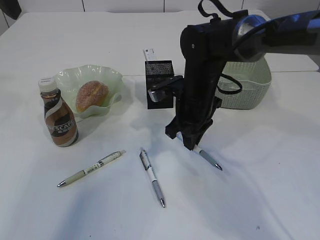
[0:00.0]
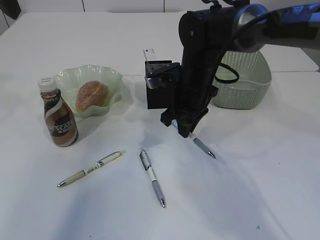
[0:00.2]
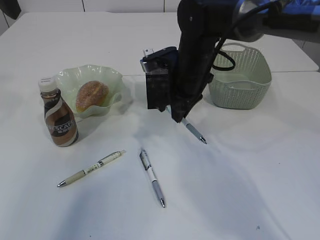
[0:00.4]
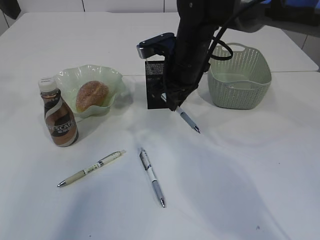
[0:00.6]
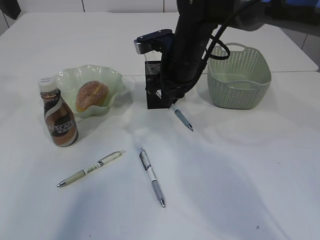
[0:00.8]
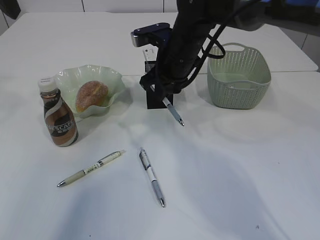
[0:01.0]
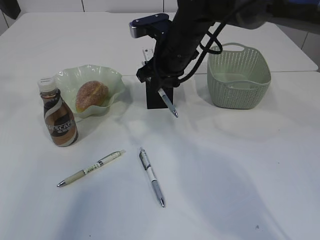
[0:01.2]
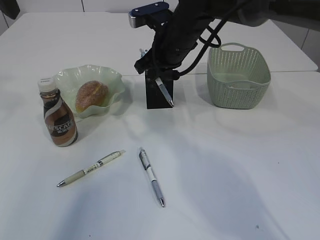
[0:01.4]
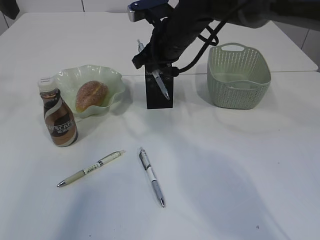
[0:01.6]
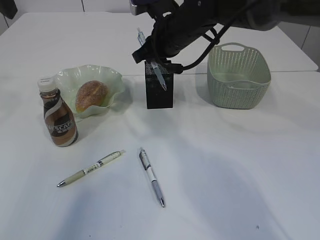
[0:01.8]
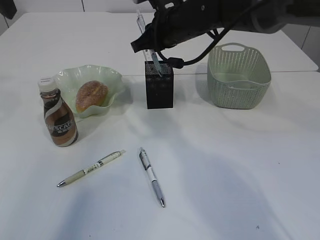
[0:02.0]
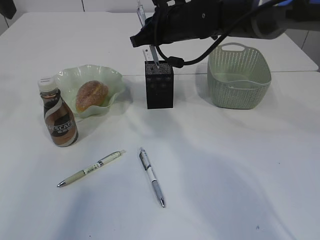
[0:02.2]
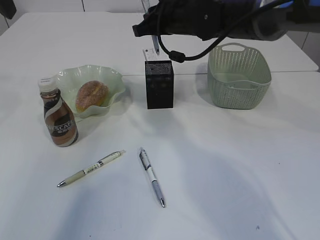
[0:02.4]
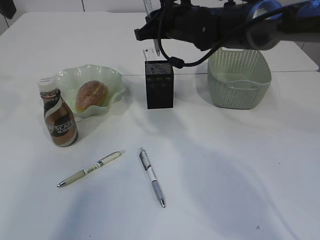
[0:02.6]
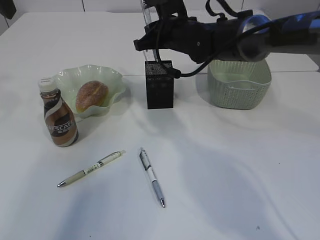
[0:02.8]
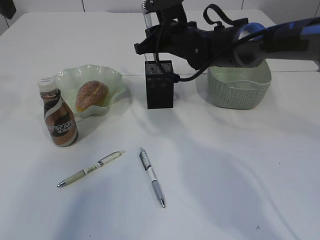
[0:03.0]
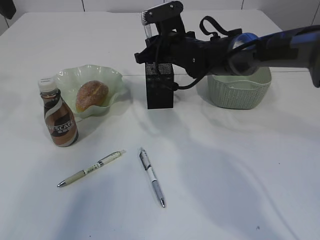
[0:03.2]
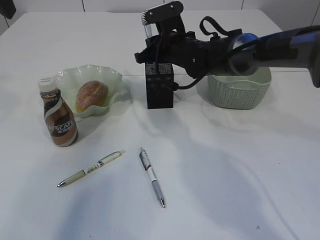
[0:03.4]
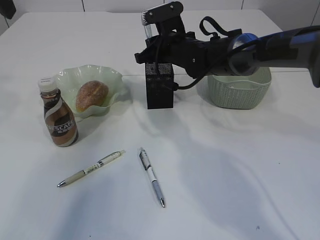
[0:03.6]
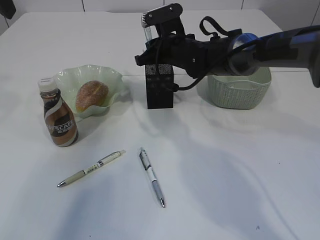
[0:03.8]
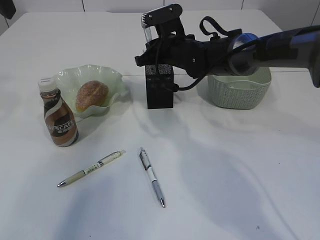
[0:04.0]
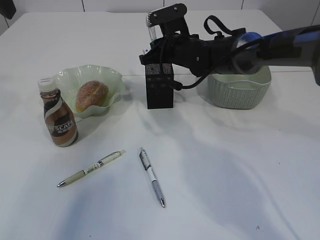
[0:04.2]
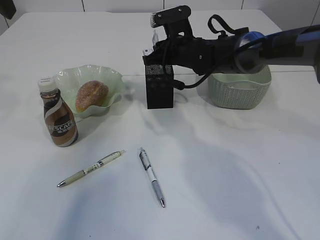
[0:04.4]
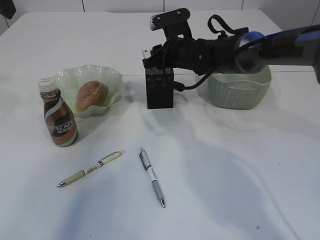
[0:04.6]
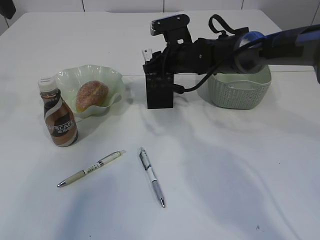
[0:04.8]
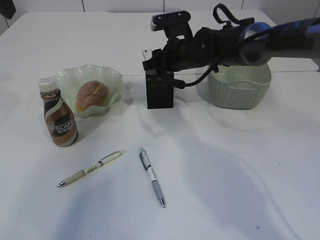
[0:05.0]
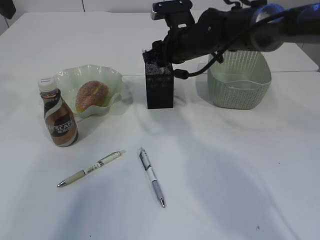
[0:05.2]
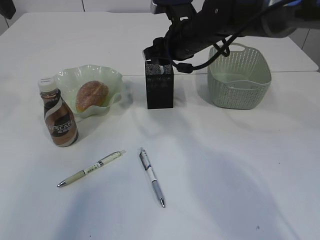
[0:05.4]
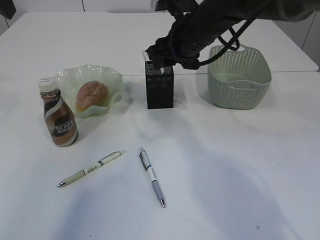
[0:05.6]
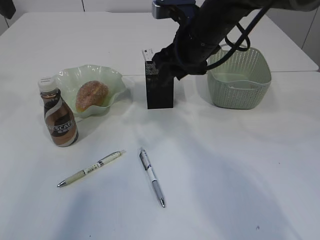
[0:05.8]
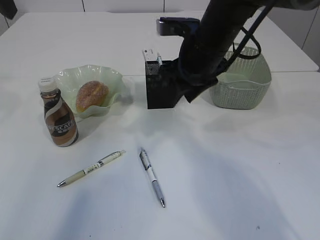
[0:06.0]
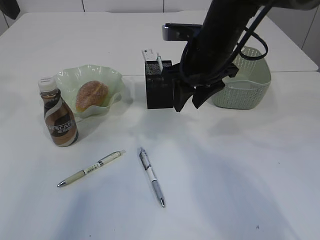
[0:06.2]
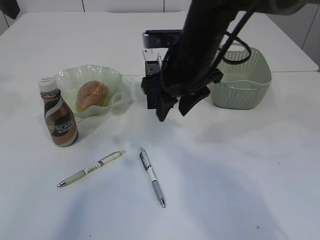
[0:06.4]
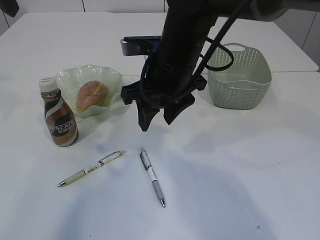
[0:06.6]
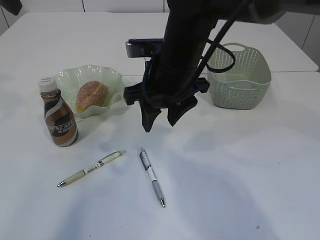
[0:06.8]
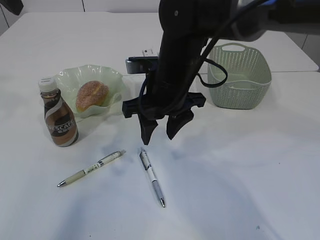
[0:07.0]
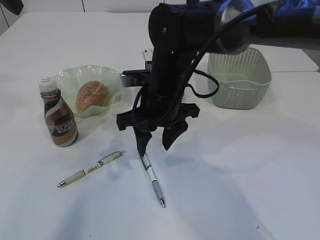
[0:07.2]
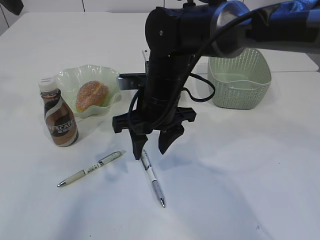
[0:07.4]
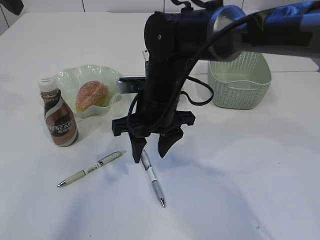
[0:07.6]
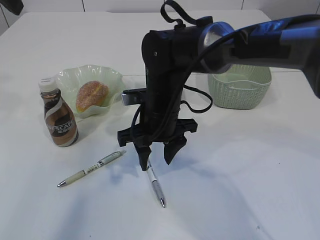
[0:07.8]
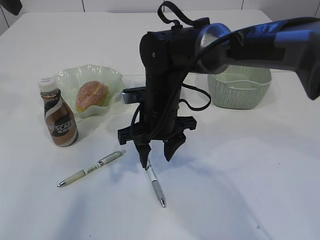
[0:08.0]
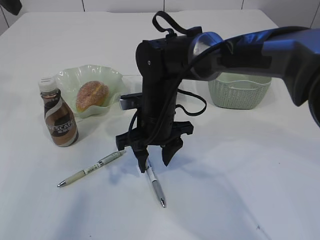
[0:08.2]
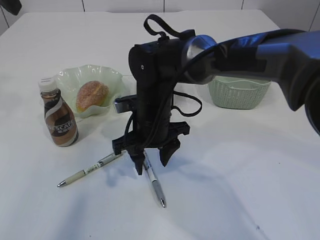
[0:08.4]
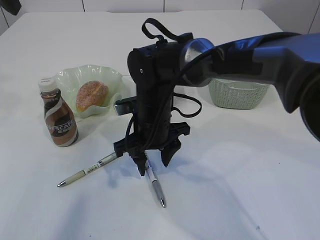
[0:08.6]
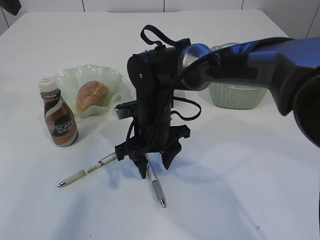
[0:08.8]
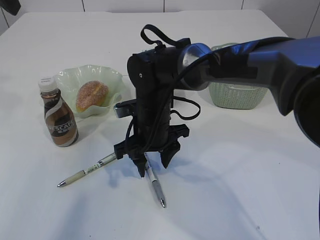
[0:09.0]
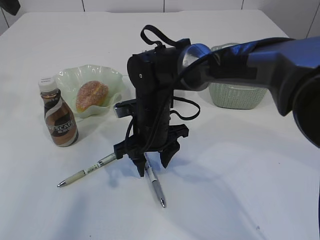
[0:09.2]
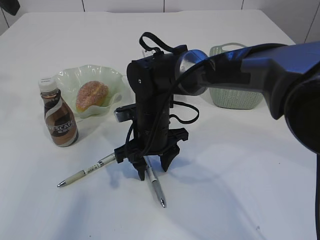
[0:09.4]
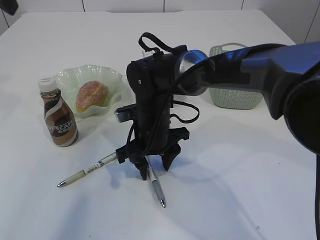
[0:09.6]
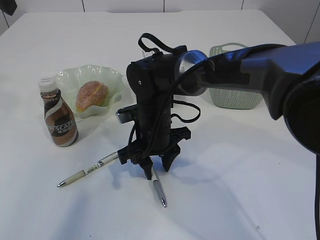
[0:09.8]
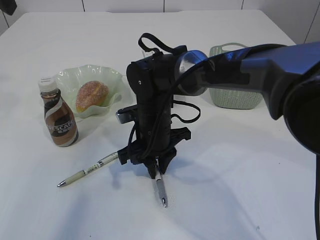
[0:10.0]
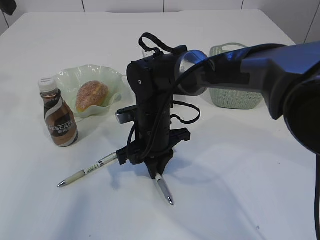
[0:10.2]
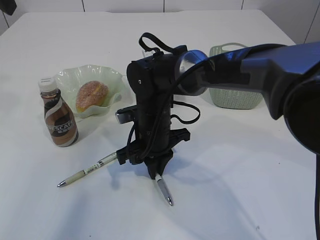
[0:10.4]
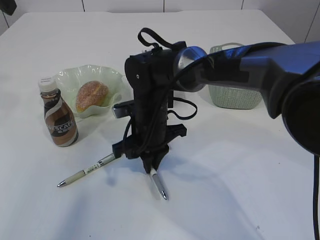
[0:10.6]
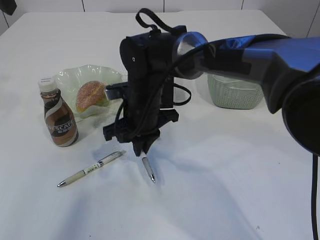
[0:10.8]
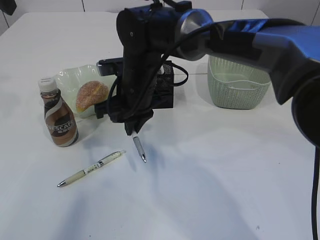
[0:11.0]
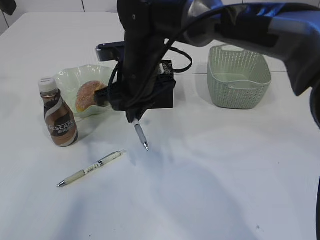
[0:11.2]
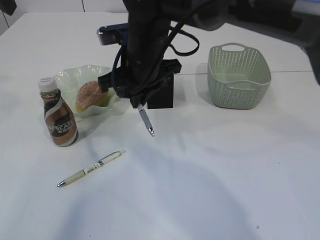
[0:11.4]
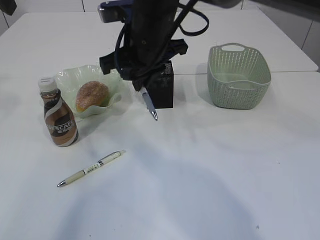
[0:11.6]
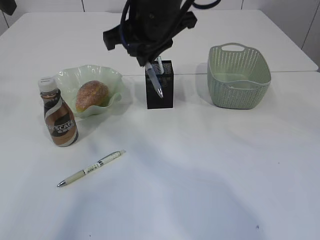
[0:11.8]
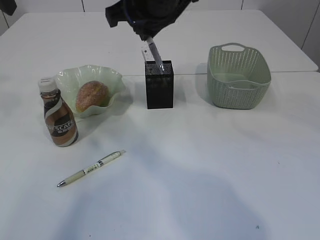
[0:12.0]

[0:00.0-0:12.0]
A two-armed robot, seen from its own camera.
Step, 0:00.2 to 0:05.8: Place the pen into the pen holder.
Step, 0:06.0 to 0:11.4: Pick up the pen with right arm.
0:00.0 to 0:01.6: The right gripper moves upward and forward, some 10 cm.
0:03.0 to 0:04.4: The grippers make only small movements.
0:04.4 to 0:06.0: The right gripper goes some 15 cm backward and upward, and opens its fingers.
0:06.0 to 0:07.6: The right gripper goes about 10 cm to the left and downward.
0:07.6 to 0:09.0: The right gripper is displaced downward by some 5 cm.
0:09.0 to 0:10.4: The right gripper closes.
0:10.4 to 0:12.0: The right gripper shifts some 20 cm upward.

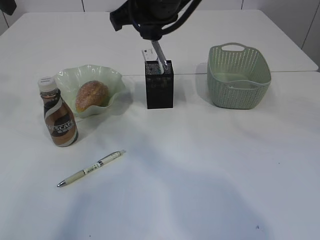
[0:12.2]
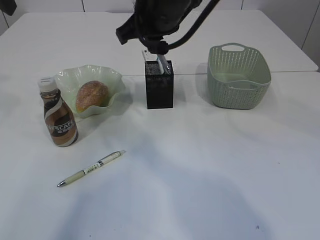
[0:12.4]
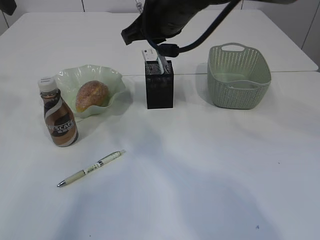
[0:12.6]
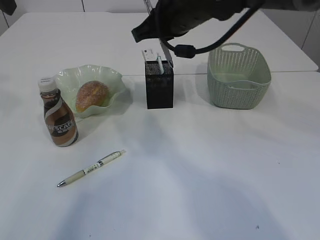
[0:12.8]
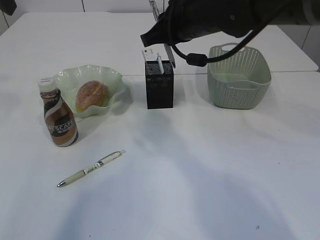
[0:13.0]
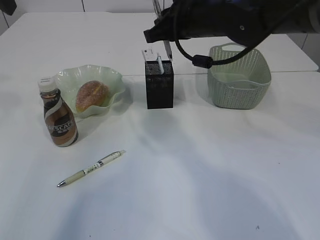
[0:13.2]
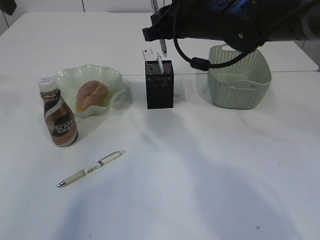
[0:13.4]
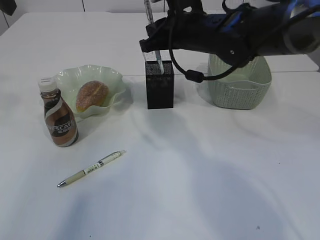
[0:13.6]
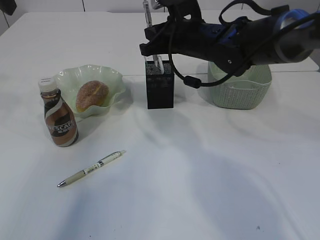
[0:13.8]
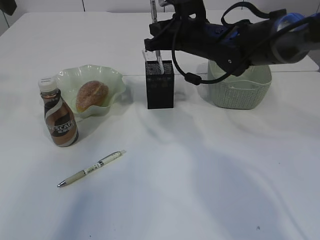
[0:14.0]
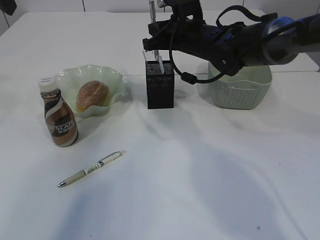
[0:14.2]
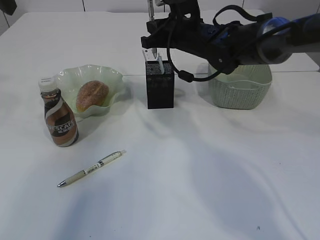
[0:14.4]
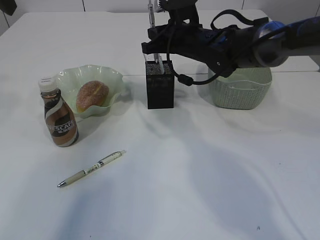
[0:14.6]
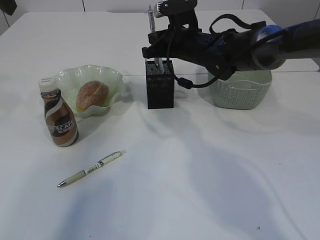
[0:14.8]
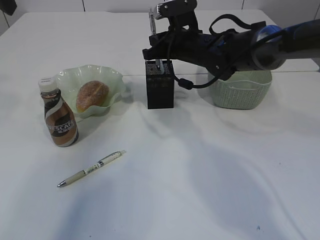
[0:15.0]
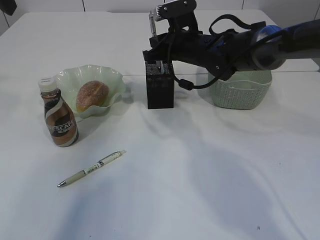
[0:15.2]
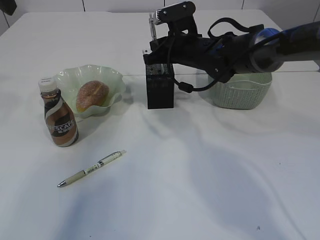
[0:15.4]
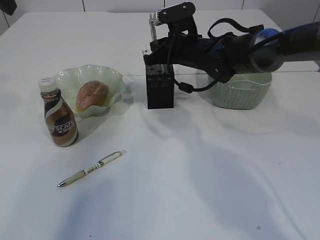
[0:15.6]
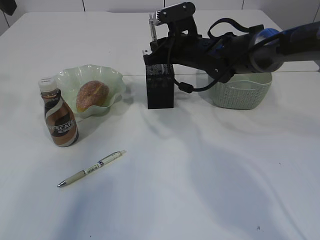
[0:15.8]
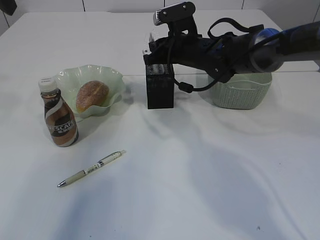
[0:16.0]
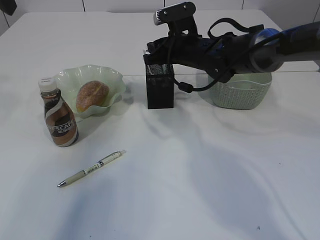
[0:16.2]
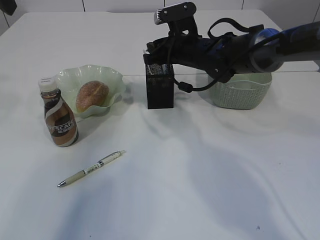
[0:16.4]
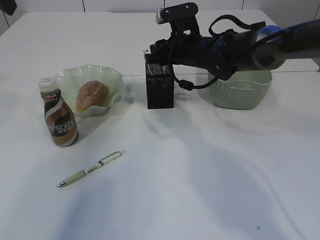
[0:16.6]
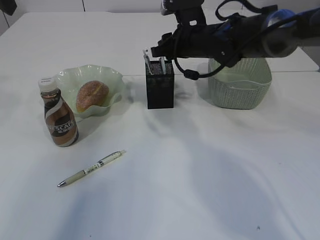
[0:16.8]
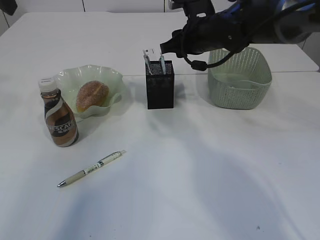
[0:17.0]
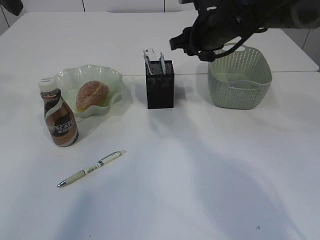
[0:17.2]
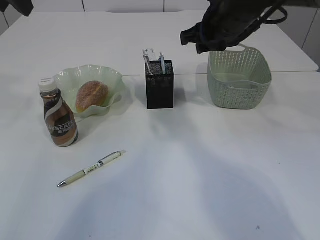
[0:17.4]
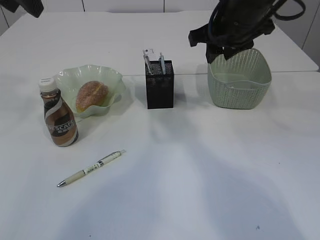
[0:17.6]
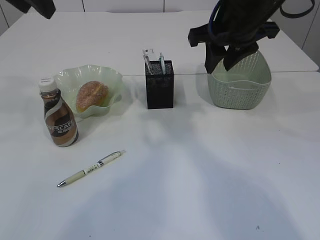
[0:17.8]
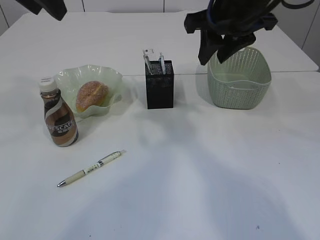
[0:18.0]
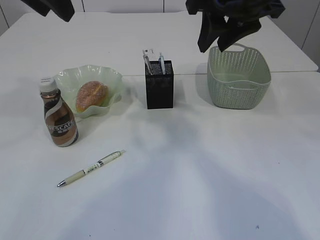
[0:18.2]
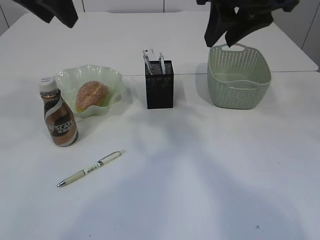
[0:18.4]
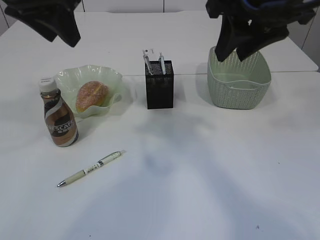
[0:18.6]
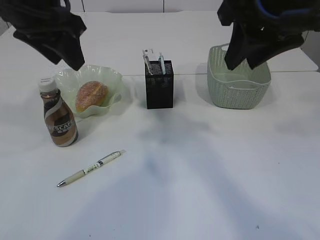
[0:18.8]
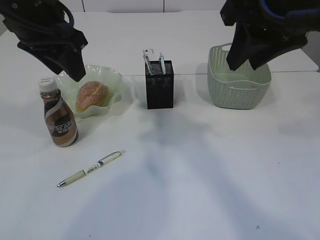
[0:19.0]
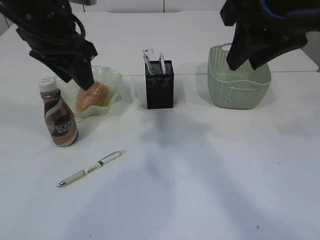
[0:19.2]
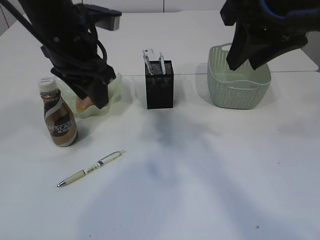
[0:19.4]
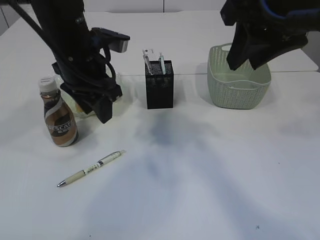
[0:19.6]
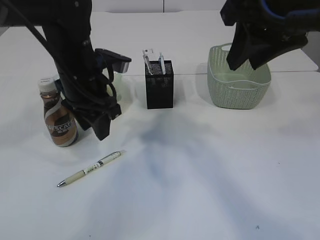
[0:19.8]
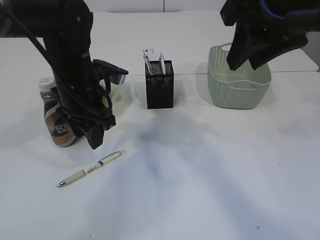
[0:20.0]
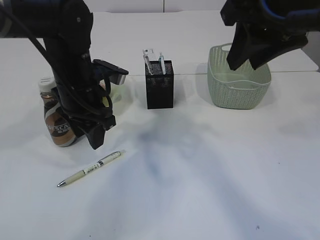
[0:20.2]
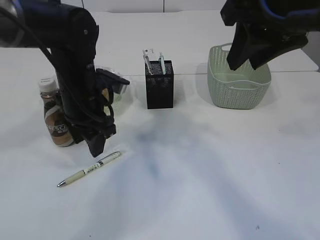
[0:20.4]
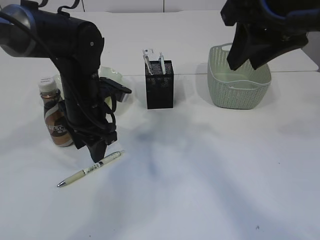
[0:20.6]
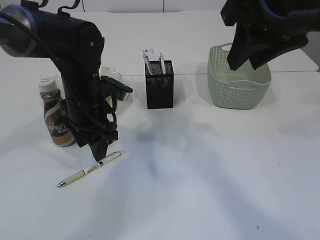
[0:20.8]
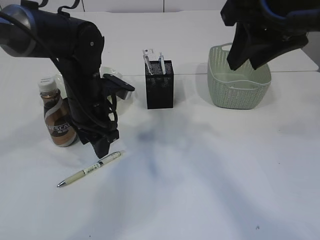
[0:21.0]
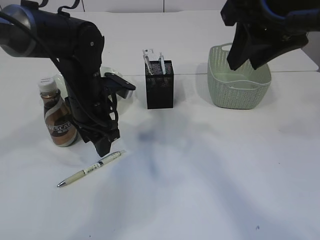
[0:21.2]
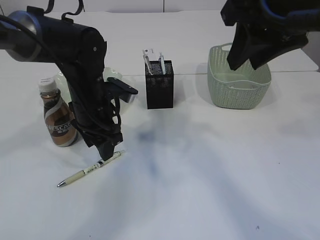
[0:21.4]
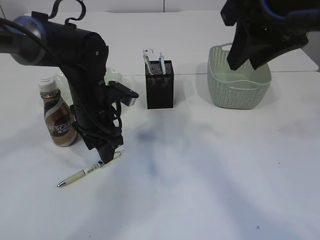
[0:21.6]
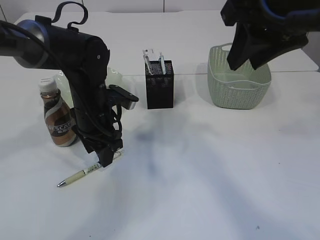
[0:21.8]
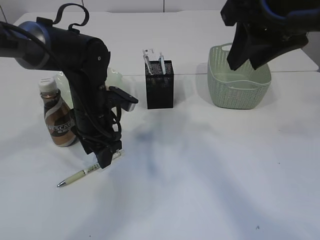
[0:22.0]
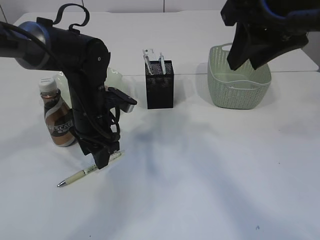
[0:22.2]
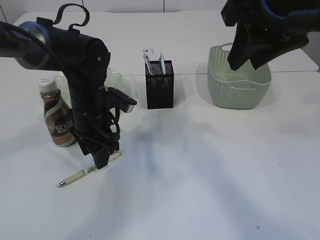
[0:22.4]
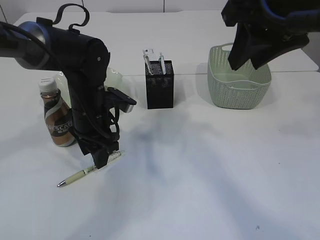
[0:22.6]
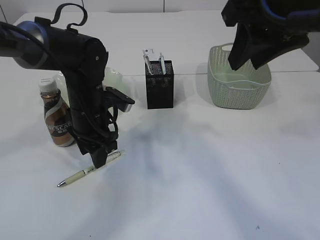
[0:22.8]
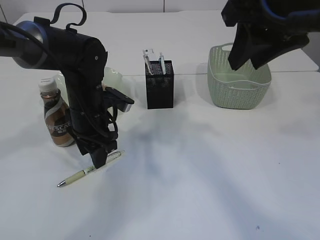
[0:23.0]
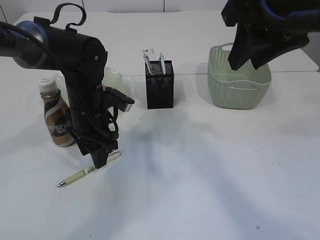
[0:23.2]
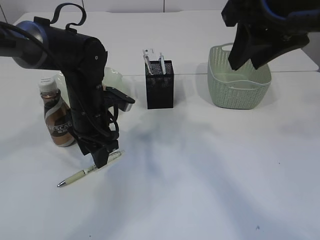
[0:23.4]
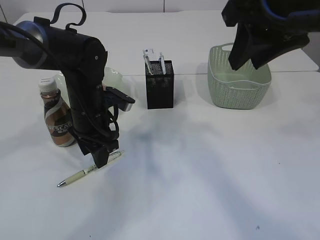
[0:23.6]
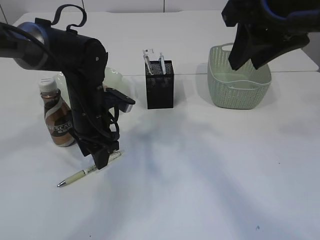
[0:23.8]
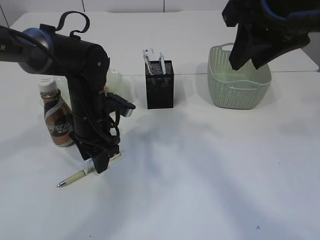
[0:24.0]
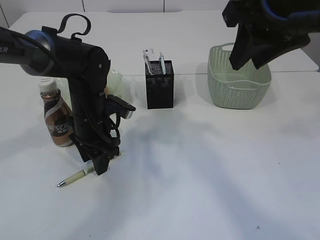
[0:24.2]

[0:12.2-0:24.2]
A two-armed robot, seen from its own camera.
Step, 0:12.2 to 0:17.0: Place the pen into the pen holder.
0:12.2 to 0:13.8: The right gripper heads downward, forward and to the right, covering approximately 15 cm.
0:13.8 to 0:15.2: The right gripper ends up approximately 5 cm from where it was.
0:15.2 to 0:16.6: The right gripper opens.
0:16.6 to 0:18.2: The right gripper travels upward and backward by some 20 cm, while the left gripper moves to the right, approximately 10 cm.
0:18.2 to 0:19.8: The right gripper moves backward, roughly 5 cm. The left gripper is displaced downward by approximately 20 cm.
0:19.8 to 0:21.2: The left gripper goes some 5 cm downward.
0:21.2 to 0:24.2: The grippers move only a little.
